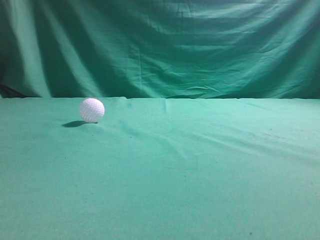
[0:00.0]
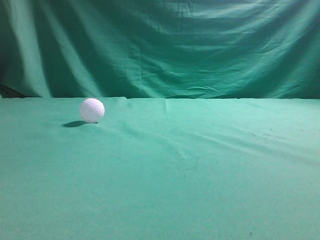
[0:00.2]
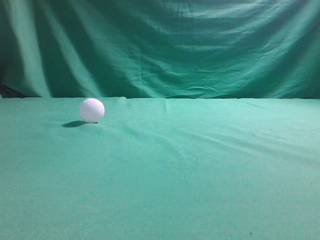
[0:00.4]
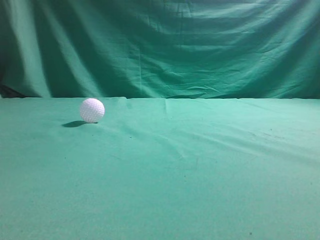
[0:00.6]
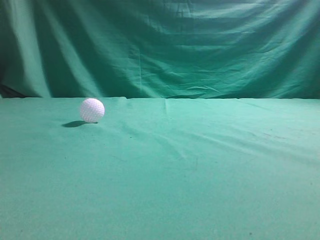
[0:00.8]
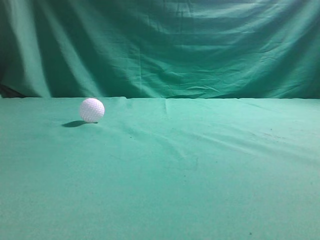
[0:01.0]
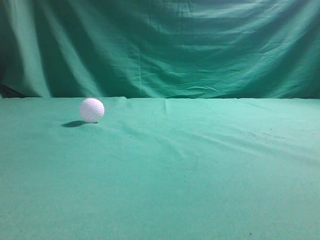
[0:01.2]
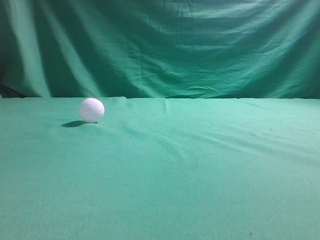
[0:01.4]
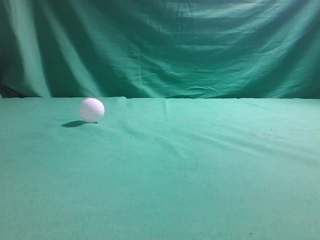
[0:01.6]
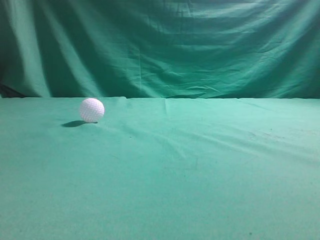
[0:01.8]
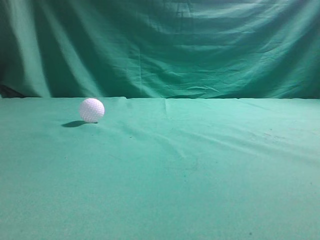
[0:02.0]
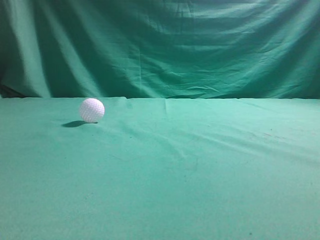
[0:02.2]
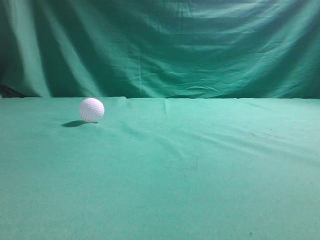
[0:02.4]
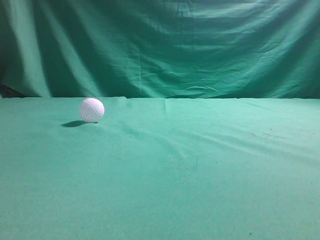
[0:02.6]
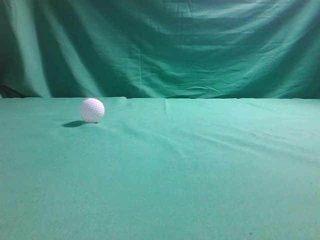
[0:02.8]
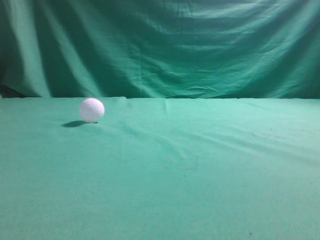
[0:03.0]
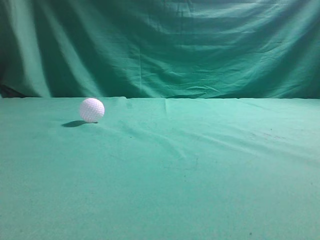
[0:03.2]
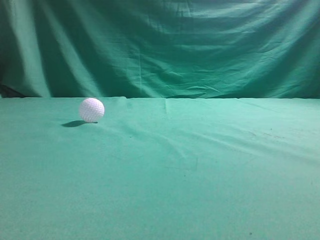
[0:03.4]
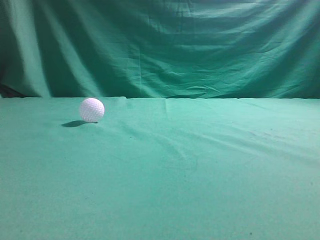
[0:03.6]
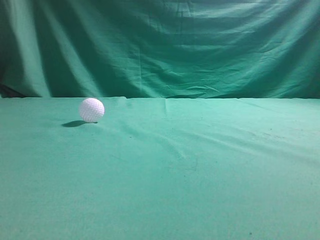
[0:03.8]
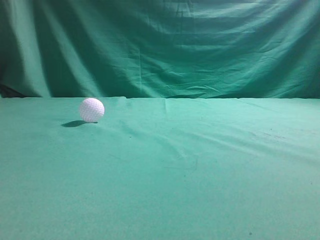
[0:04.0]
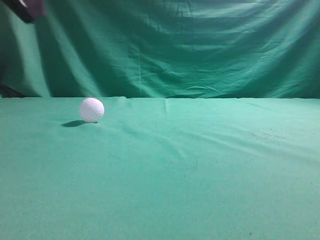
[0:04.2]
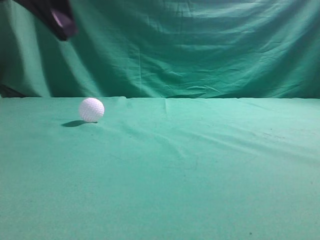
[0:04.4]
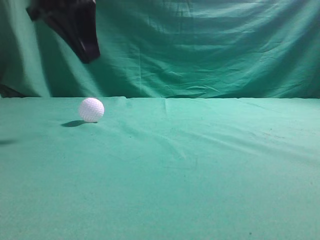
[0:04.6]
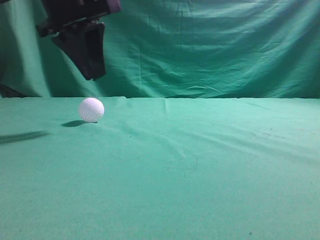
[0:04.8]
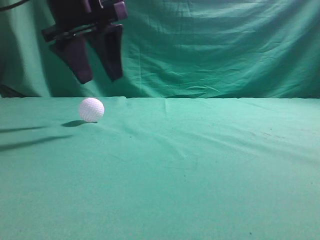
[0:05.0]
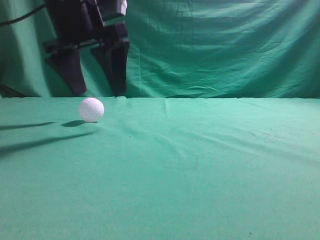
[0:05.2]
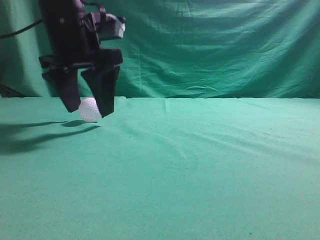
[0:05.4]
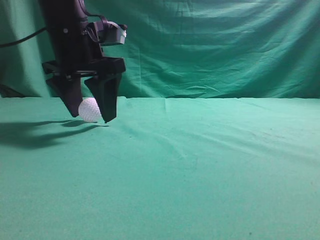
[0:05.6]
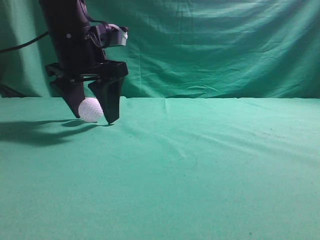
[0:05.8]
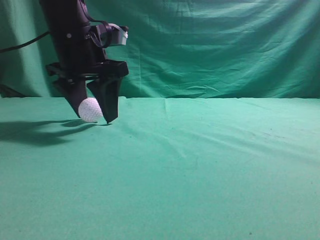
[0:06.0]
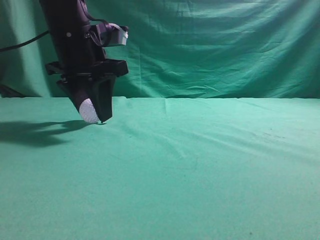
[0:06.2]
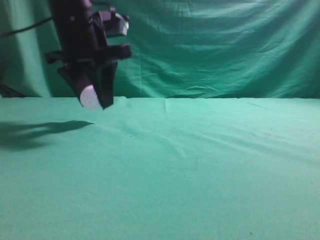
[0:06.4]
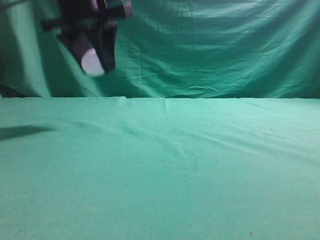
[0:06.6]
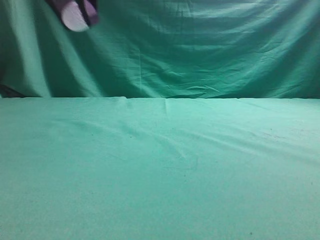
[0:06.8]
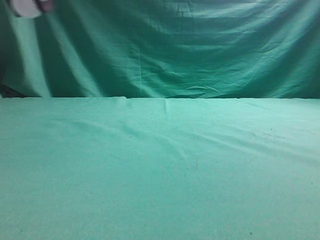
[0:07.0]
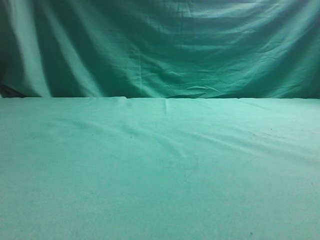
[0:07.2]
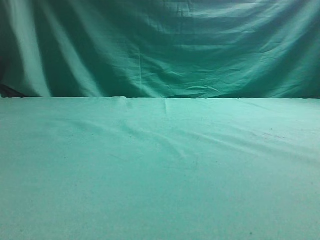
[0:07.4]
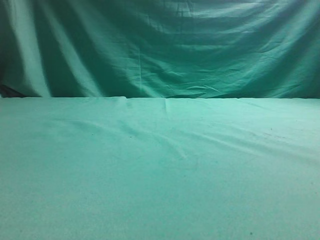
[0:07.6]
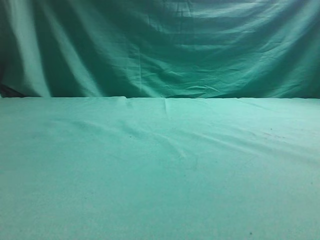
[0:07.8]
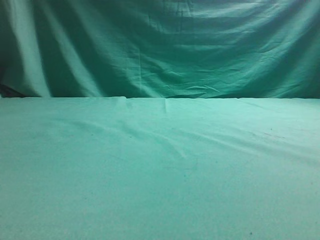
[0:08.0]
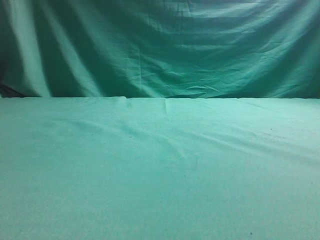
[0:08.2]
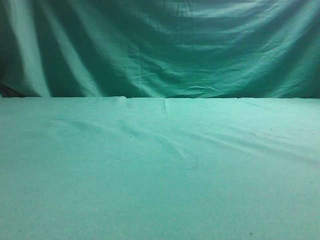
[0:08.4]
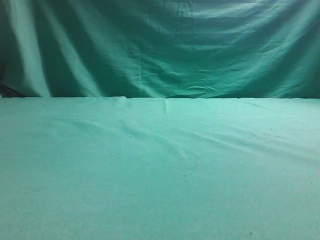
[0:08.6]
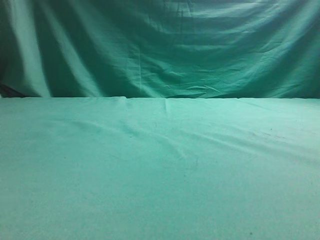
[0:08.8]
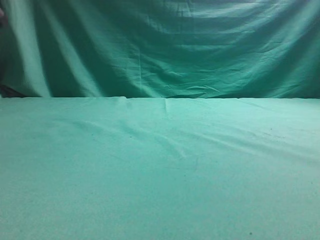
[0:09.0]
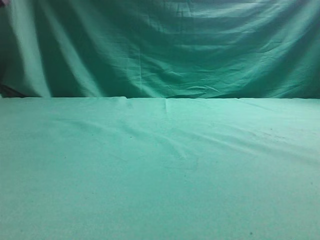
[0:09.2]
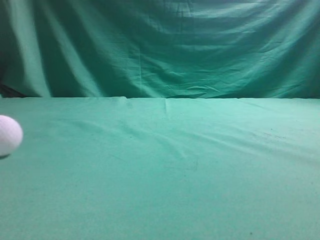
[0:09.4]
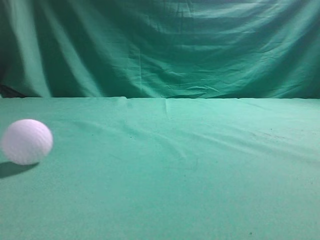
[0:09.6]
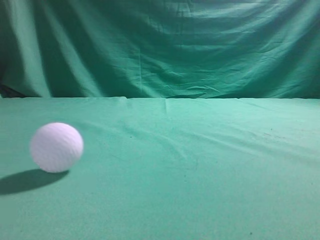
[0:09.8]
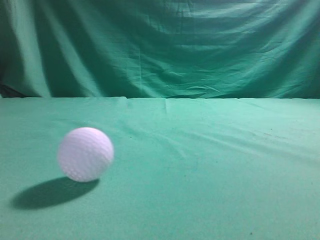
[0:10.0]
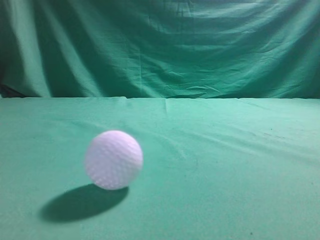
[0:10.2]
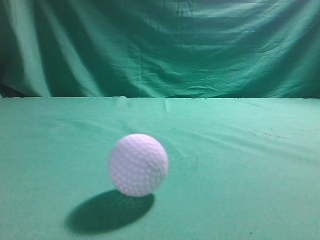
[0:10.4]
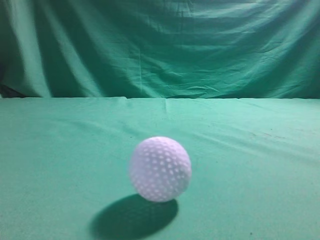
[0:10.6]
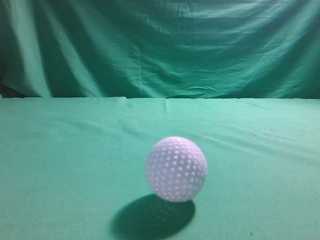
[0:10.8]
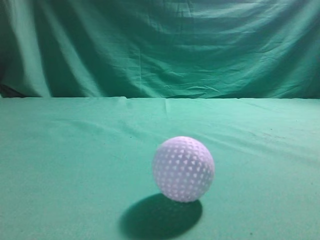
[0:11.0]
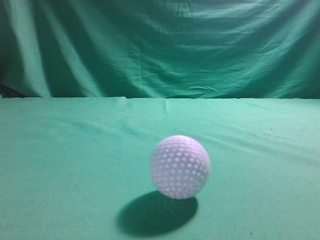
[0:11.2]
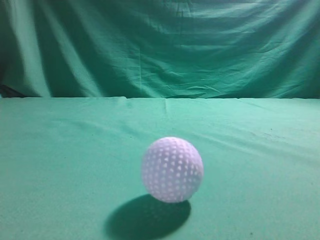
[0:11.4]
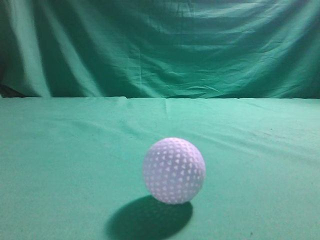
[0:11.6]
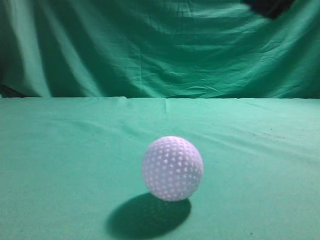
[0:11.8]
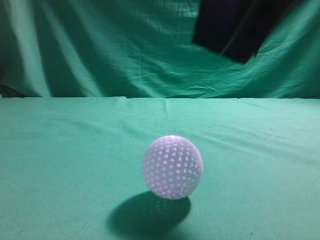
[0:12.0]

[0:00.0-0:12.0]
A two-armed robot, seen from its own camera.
Task of the whole recording: pick up the ball and place it on the plate, then pick up the ball from the plate and put it in the center of the table.
Step, 0:00.0 to 0:06.4: Grab the spherical object with your left arm.
Step, 0:06.6 to 0:08.8: Place the sphere on the white object.
0:03.0 to 0:04.4: The left gripper heads forward and to the right, covering about 25 cm.
0:04.4 to 0:06.0: The left gripper heads downward and forward, covering roughly 15 cm, and opens up.
0:06.0 to 0:07.6: The left gripper goes some 20 cm to the left.
0:09.0 to 0:10.4: The left gripper goes some 25 cm backward, and closes its fingers.
0:10.4 to 0:12.0: The left gripper moves some 5 cm. The right gripper heads to the left and forward, covering some 20 cm, and opens.

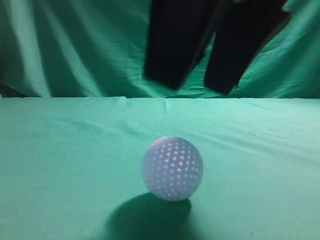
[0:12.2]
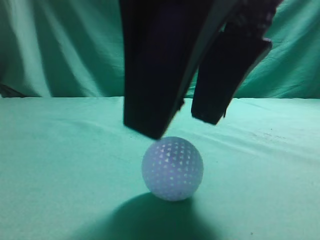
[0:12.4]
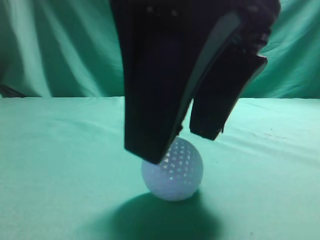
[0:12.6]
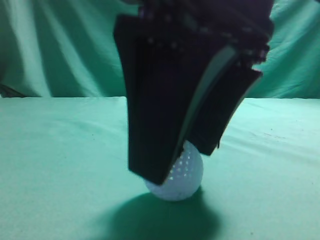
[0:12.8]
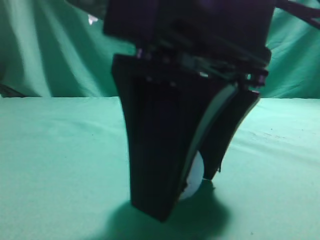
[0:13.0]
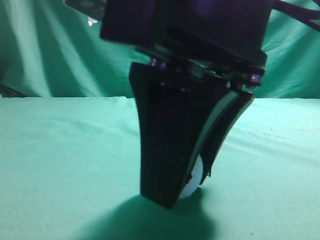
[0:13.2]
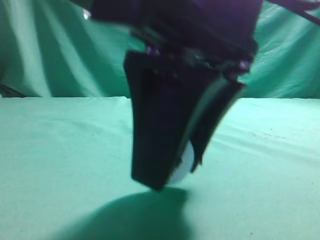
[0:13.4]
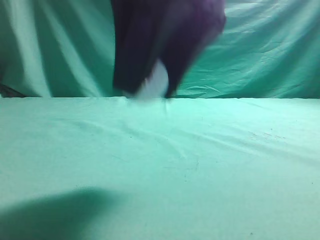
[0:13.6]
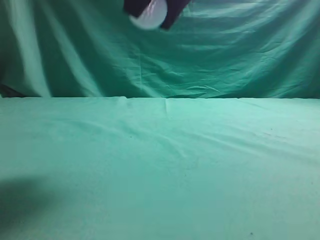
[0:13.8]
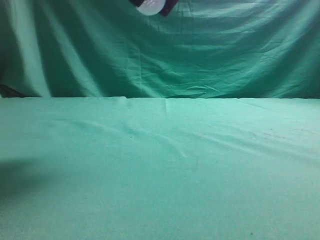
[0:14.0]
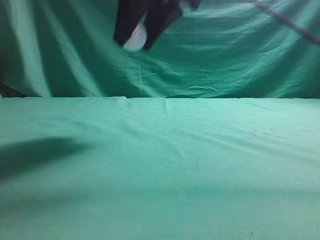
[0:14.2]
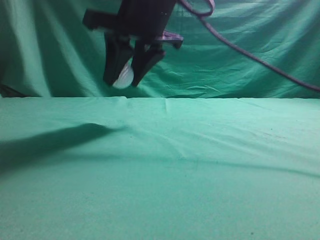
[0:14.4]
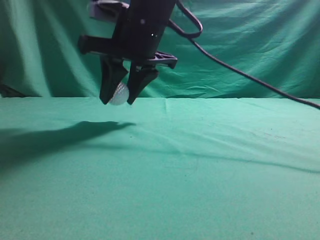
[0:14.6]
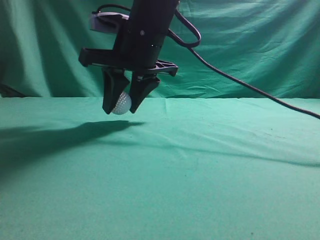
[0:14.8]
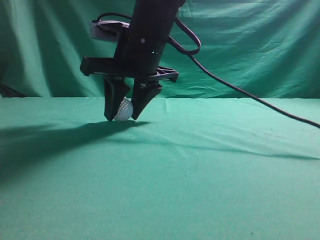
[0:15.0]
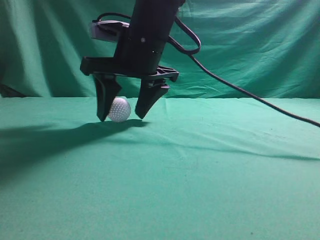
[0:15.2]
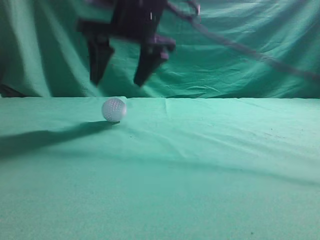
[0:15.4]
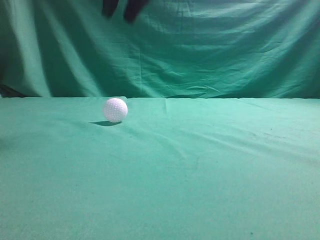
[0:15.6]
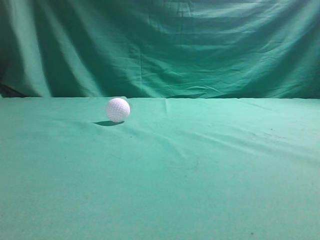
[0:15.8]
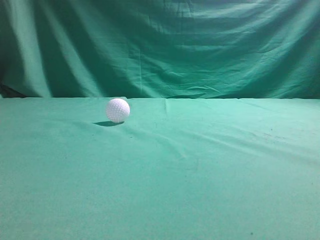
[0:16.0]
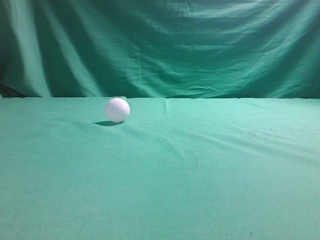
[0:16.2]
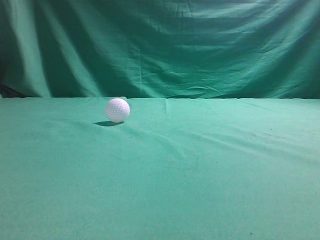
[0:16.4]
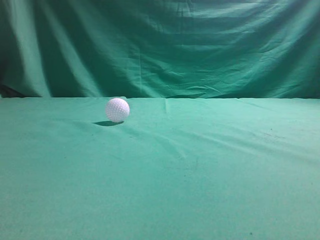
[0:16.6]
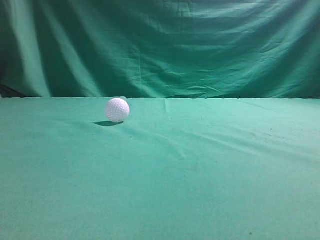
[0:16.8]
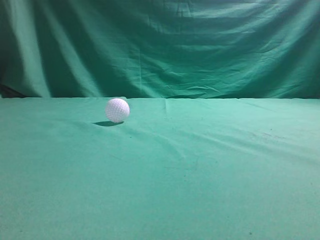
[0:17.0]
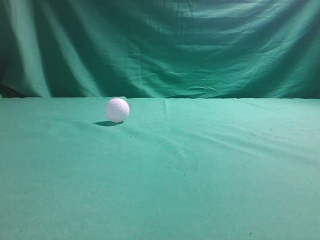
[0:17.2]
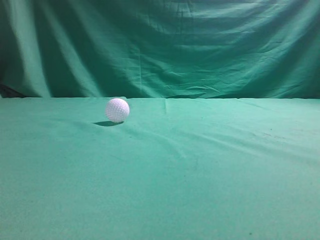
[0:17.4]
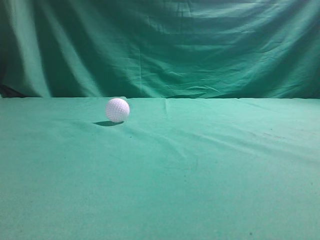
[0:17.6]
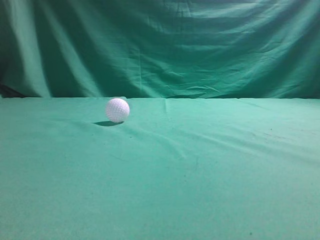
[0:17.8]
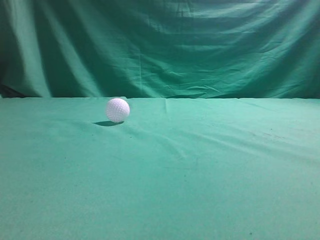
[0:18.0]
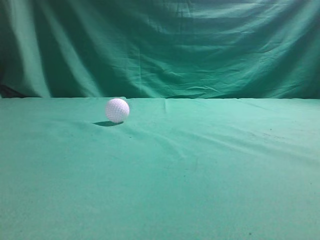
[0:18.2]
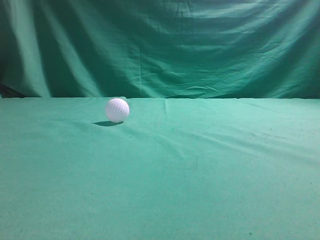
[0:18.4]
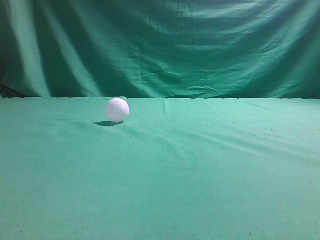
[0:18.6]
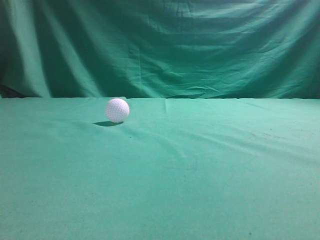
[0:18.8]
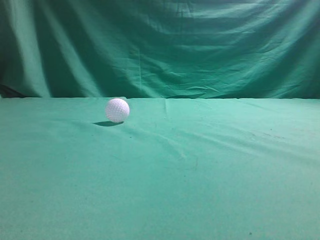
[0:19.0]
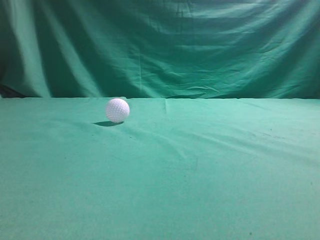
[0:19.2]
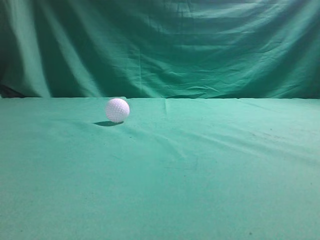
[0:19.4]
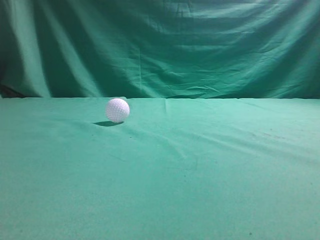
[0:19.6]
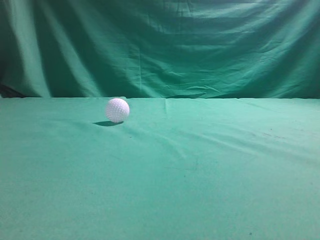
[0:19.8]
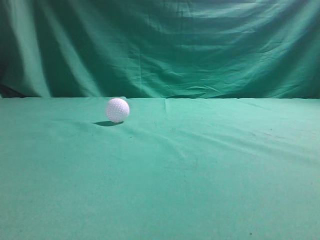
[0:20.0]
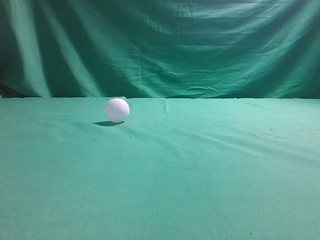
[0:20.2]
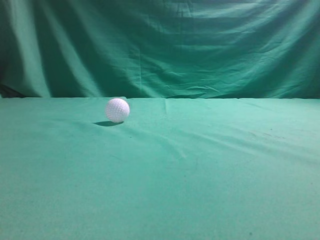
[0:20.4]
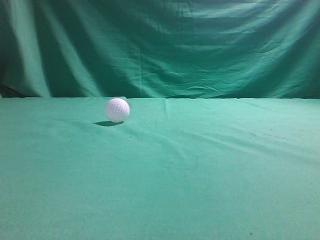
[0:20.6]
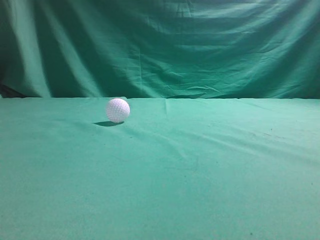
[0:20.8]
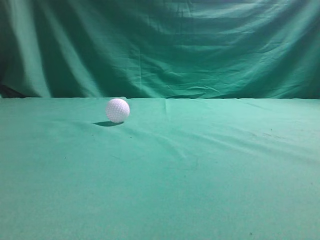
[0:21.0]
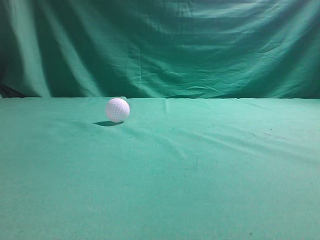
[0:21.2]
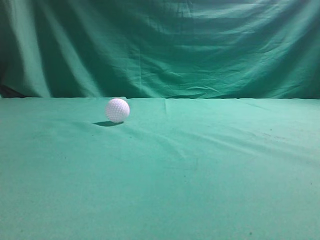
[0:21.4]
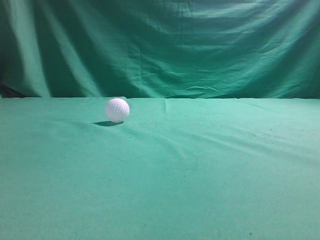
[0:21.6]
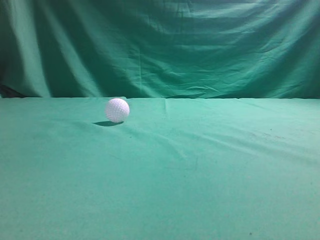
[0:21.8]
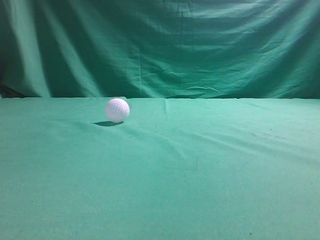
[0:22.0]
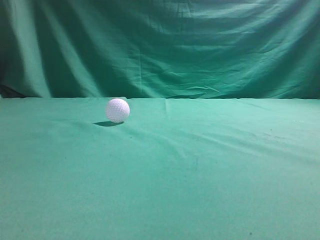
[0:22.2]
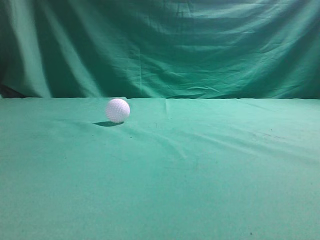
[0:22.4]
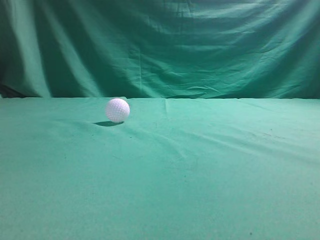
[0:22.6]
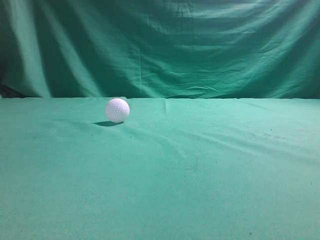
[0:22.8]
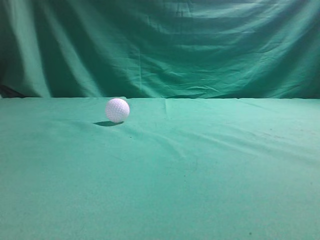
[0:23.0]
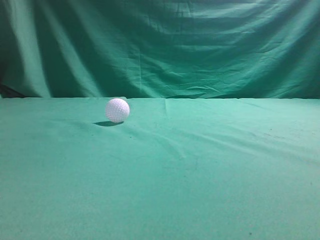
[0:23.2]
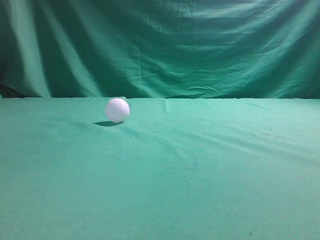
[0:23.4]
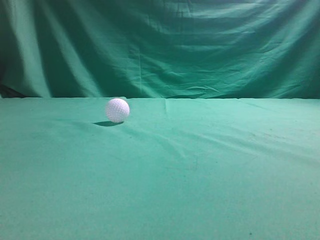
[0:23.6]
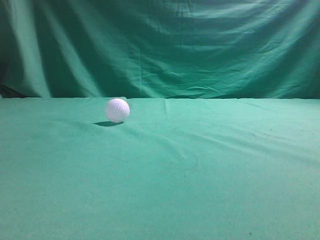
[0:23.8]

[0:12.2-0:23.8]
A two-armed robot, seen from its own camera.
Task of the whole recording: pick up the ball and place it on the plate, then pick up the ball from the plate and put it in the center of the table.
Step, 0:13.6 to 0:15.2: Put the picked-up object on the table.
0:12.2 to 0:13.6: The right gripper ends up about 5 cm from where it was, and closes up.
0:13.6 to 0:15.0: The right gripper shifts approximately 20 cm forward.
0:15.0 to 0:16.6: The right gripper moves upward, backward and to the right, about 40 cm, and closes its fingers.
0:22.4 to 0:23.8: The two grippers keep their place.
